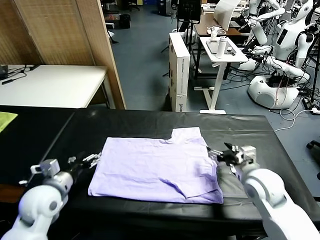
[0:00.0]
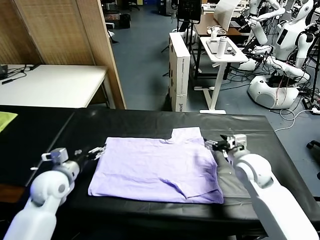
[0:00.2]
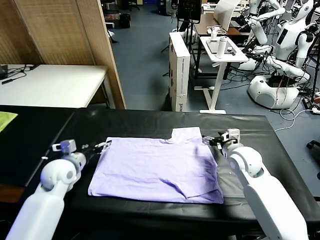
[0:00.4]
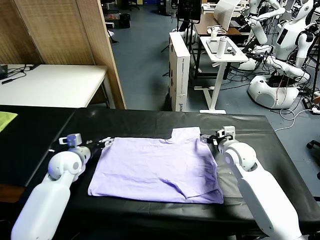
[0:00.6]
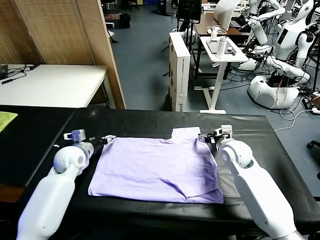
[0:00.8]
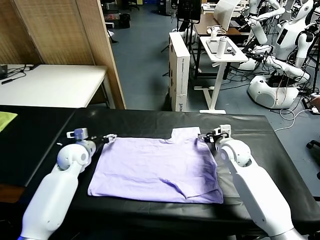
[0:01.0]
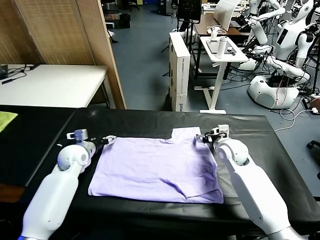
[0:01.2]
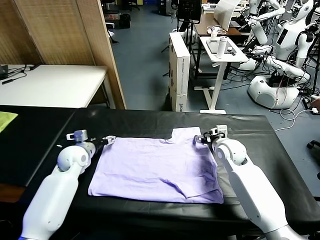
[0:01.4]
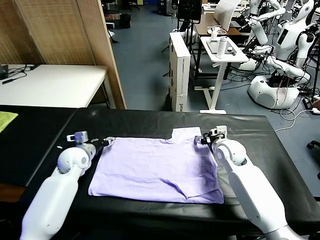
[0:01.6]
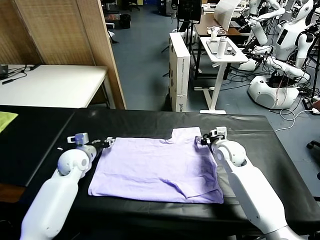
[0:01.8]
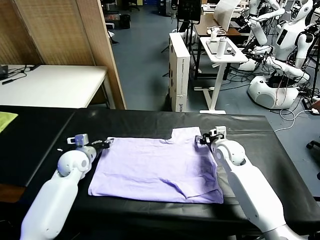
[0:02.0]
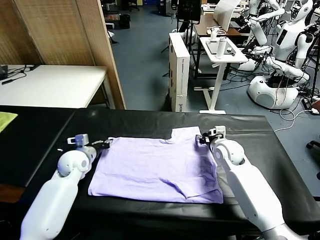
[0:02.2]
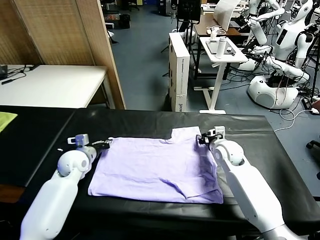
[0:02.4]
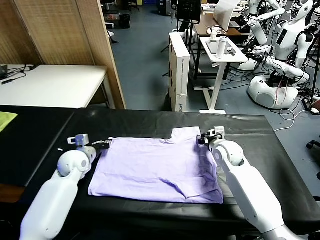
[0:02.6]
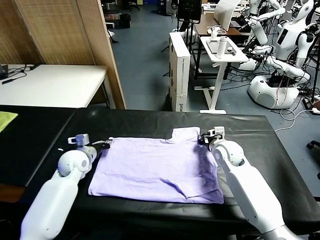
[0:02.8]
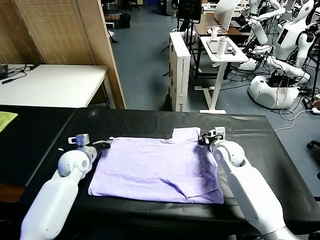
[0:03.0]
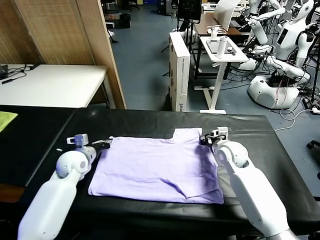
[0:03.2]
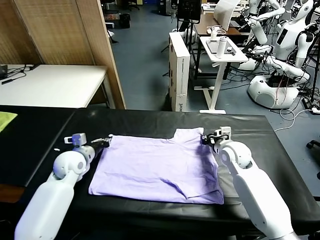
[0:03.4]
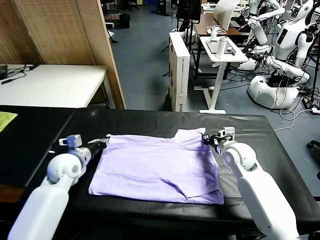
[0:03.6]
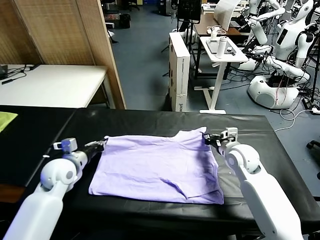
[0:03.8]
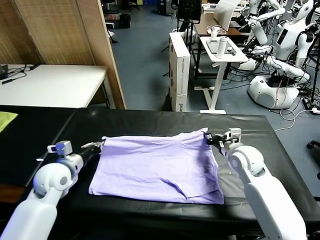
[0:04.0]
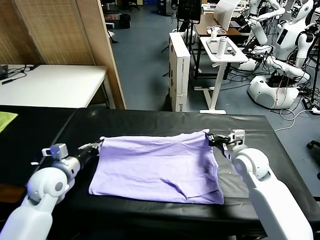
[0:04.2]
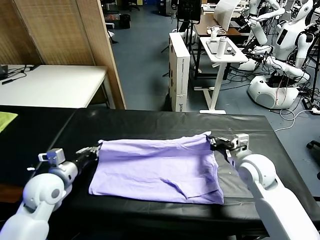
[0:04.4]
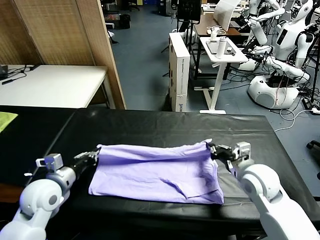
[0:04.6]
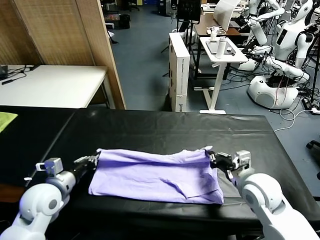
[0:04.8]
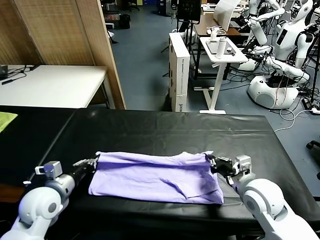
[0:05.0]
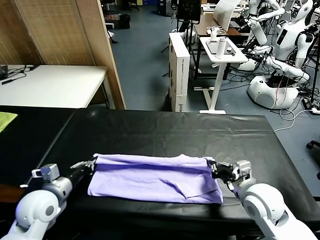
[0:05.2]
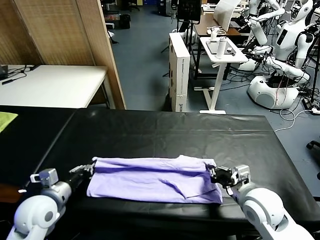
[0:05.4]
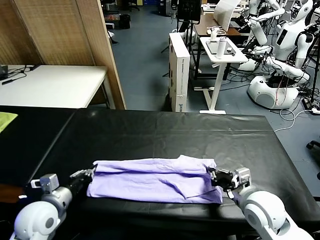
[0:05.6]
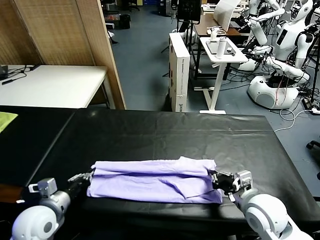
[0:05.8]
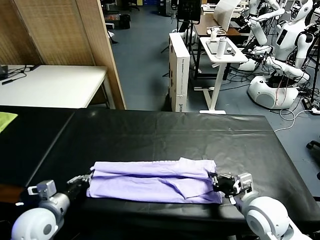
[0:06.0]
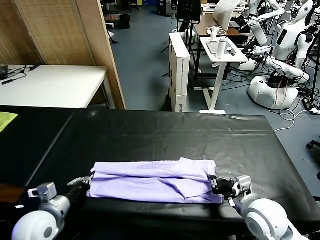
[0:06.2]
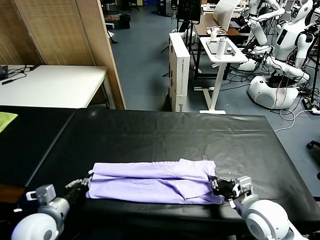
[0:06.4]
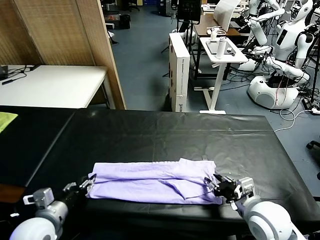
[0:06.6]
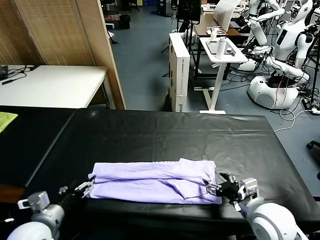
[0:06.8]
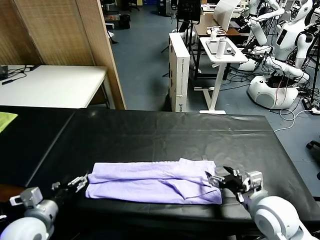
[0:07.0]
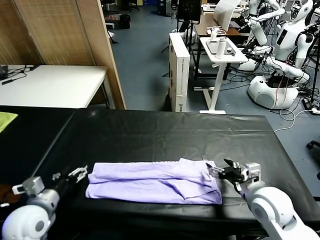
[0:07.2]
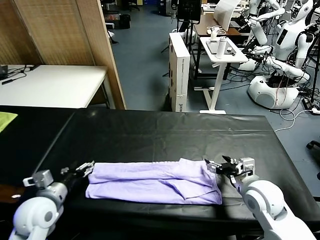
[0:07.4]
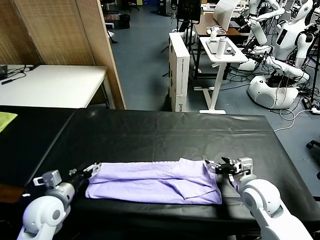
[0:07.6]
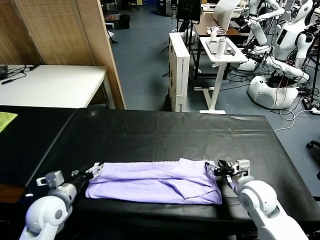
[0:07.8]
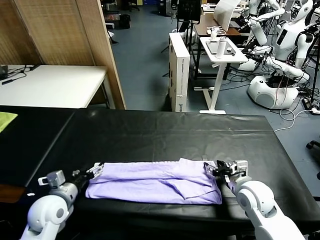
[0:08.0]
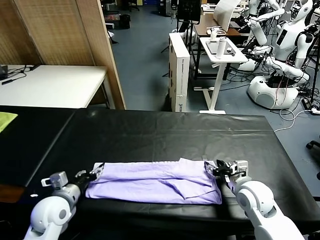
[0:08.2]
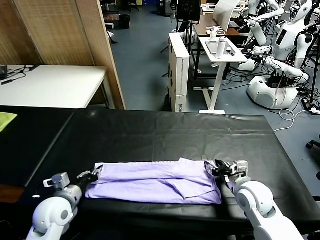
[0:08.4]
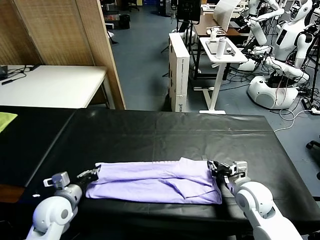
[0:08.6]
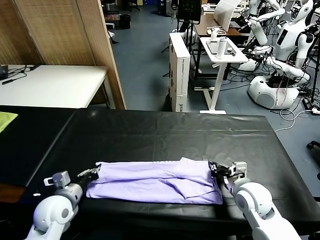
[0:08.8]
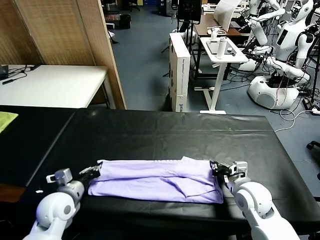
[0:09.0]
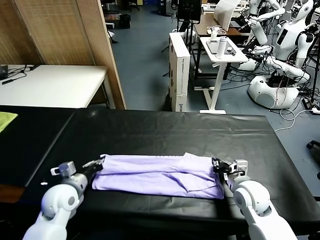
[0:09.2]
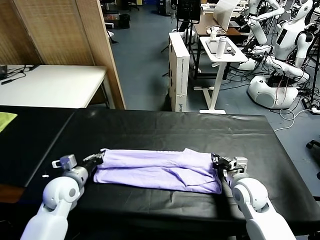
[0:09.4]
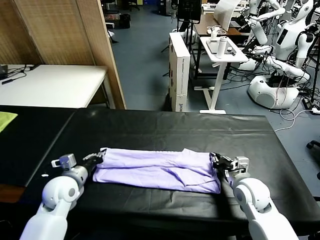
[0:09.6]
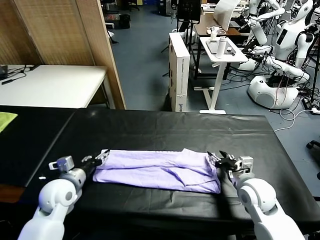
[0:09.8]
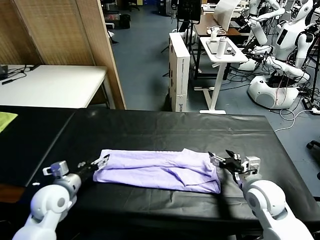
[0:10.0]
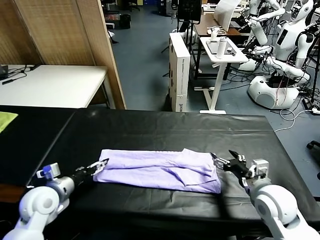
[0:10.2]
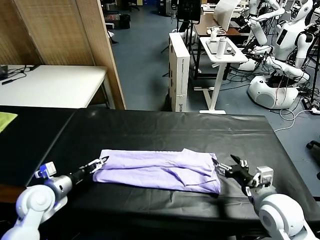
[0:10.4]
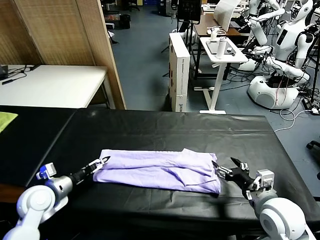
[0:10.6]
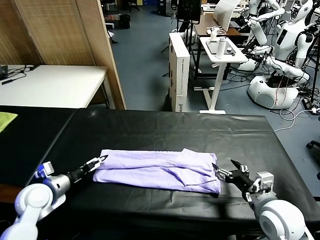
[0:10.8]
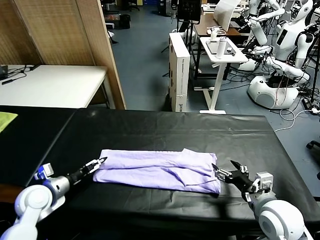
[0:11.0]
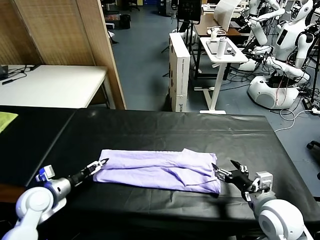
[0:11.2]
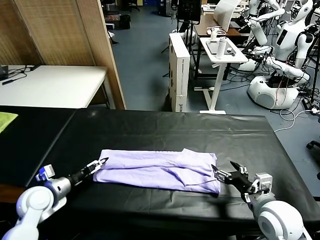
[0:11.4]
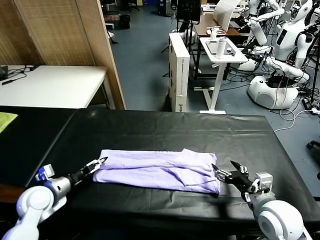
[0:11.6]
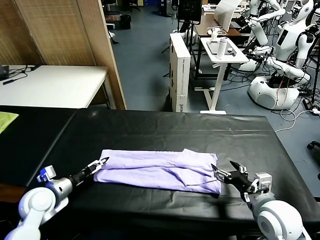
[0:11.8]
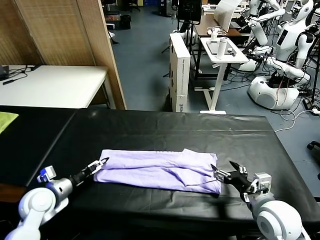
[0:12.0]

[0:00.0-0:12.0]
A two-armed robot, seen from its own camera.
Task of the whole recording: fold and organize the clothes.
Step, 0:00.0 to 0:03.2: use both grippers simultaneously to clamp the upper edge of the clothing fabric.
Step, 0:03.4 to 0:06.6: use both grippers to drag the upper edge of the fabric backward and fold it over the lower edge.
0:00.0 to 0:01.6: The left gripper is displaced forward by roughly 15 cm. The right gripper heads forward and downward, covering about 10 cm.
0:01.6 to 0:03.0: The right gripper closes, while the left gripper closes.
0:03.0 to 0:04.4: The two grippers go about 15 cm backward and upward.
0:04.4 to 0:06.0: Both grippers travel together backward, approximately 10 cm.
0:06.0 to 0:07.6: The right gripper shifts some 5 cm forward, and opens up. The left gripper opens its fingers.
0:07.6 to 0:09.0: The left gripper closes up. The right gripper closes up.
0:09.0 to 0:10.4: The right gripper shifts some 10 cm backward and upward, and opens up. The left gripper goes approximately 5 cm to the left, and opens its fingers.
0:10.4 to 0:12.0: The grippers make only small movements.

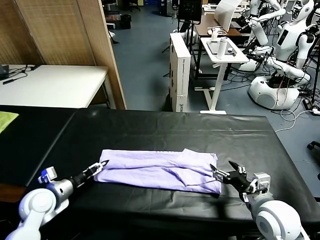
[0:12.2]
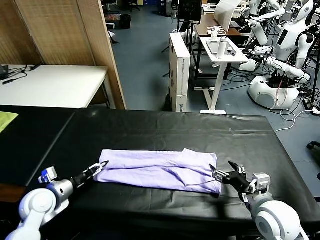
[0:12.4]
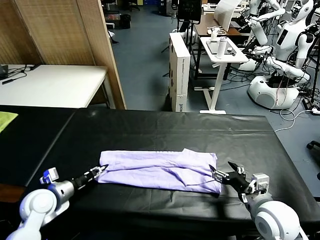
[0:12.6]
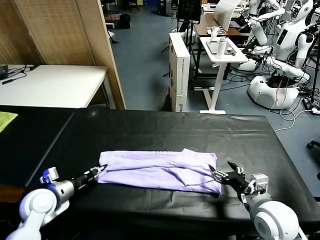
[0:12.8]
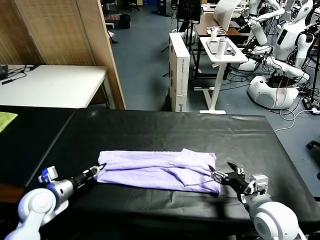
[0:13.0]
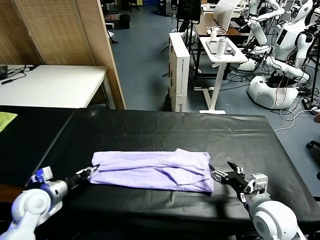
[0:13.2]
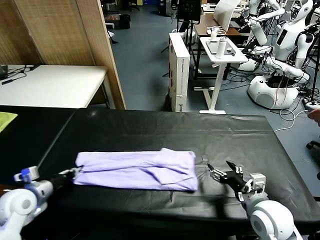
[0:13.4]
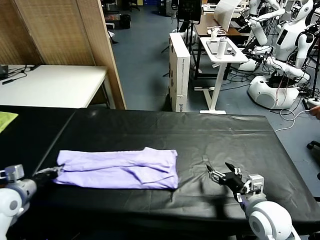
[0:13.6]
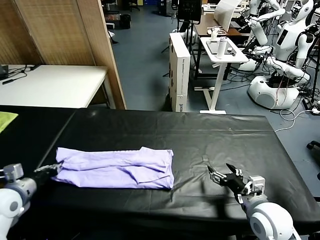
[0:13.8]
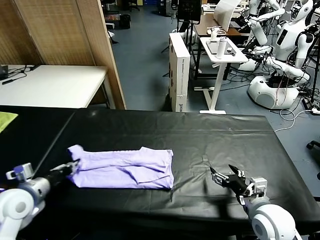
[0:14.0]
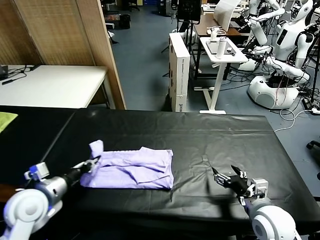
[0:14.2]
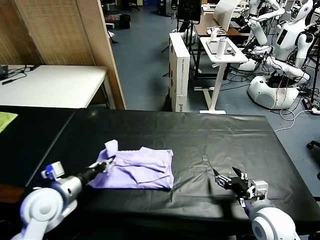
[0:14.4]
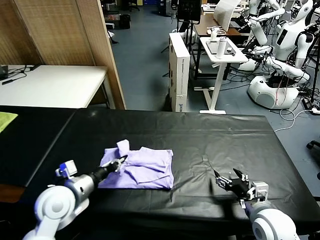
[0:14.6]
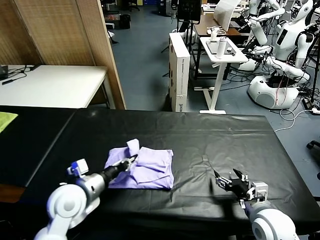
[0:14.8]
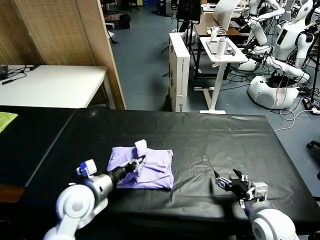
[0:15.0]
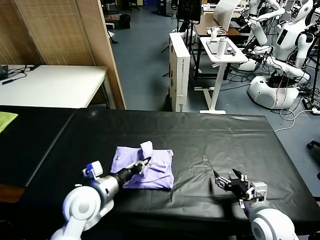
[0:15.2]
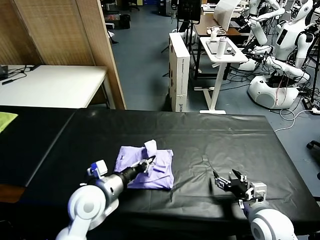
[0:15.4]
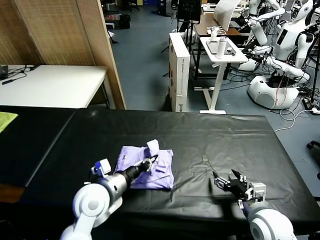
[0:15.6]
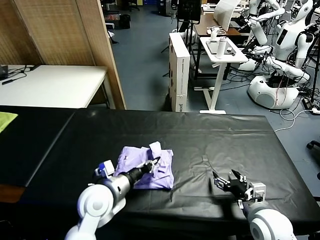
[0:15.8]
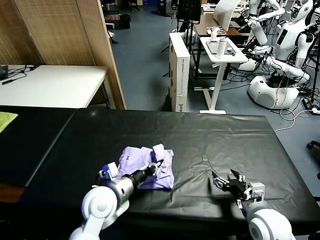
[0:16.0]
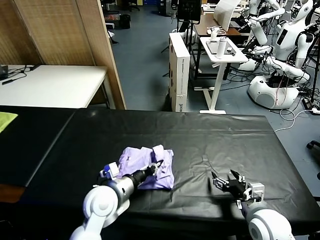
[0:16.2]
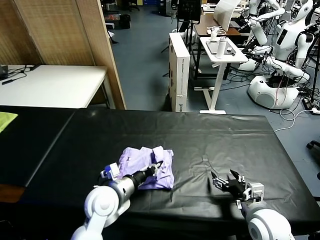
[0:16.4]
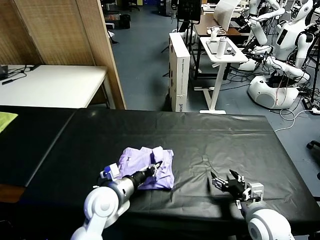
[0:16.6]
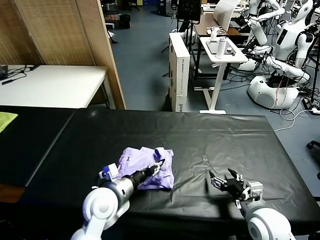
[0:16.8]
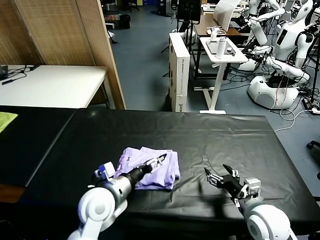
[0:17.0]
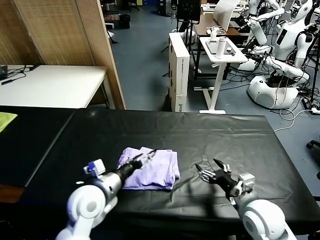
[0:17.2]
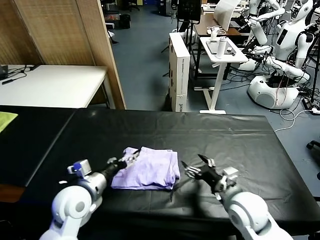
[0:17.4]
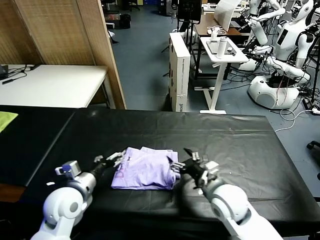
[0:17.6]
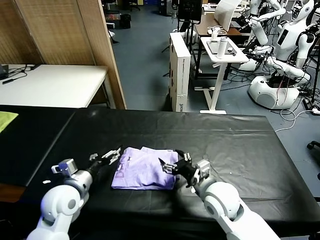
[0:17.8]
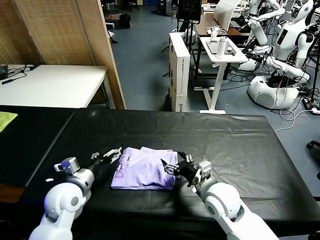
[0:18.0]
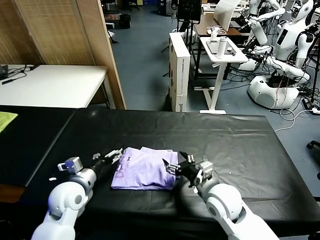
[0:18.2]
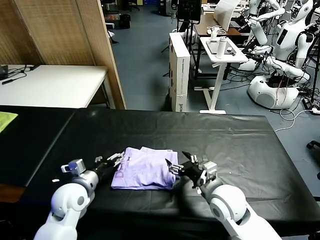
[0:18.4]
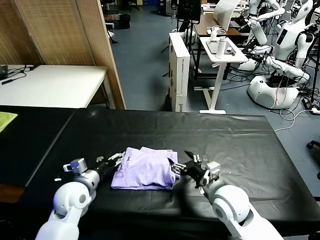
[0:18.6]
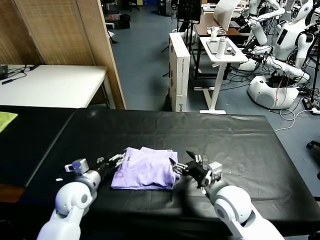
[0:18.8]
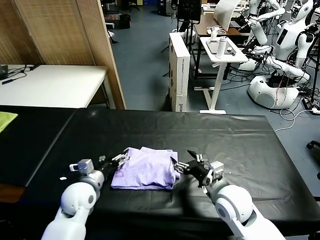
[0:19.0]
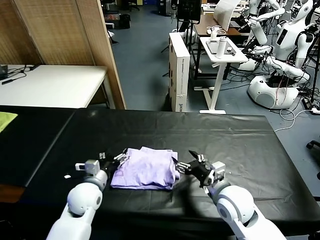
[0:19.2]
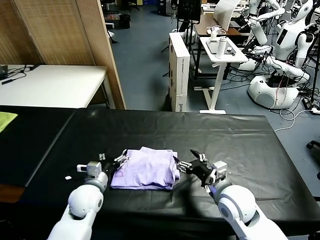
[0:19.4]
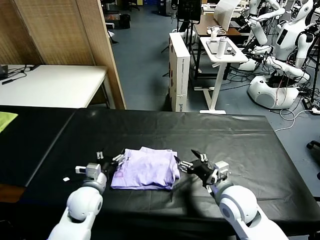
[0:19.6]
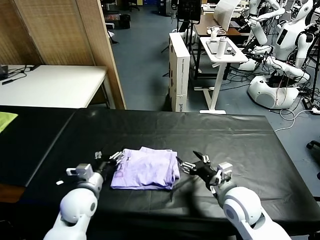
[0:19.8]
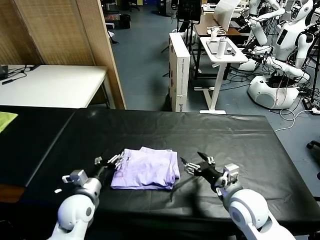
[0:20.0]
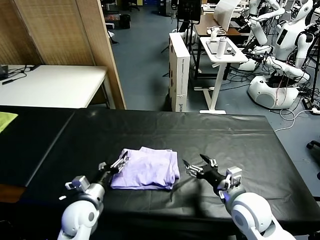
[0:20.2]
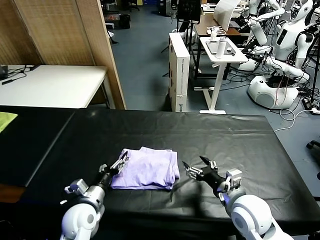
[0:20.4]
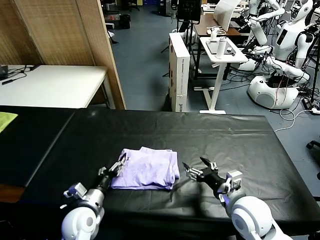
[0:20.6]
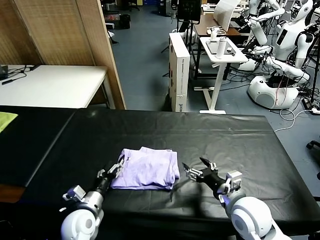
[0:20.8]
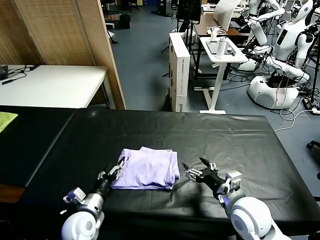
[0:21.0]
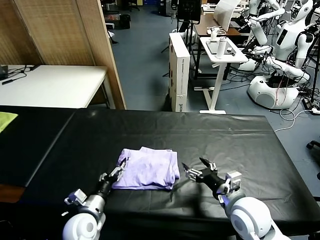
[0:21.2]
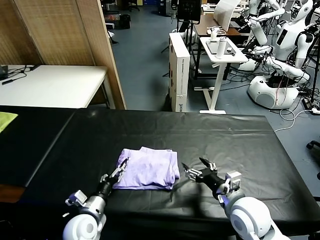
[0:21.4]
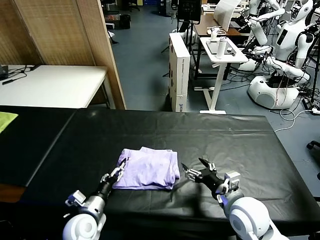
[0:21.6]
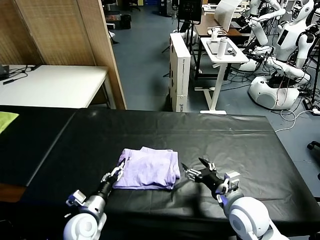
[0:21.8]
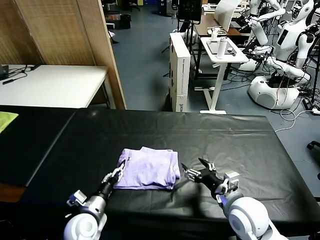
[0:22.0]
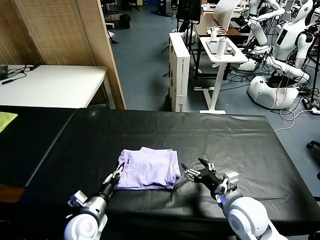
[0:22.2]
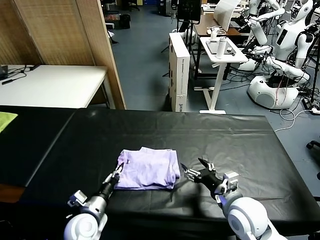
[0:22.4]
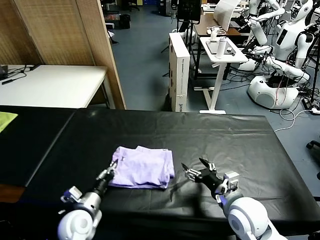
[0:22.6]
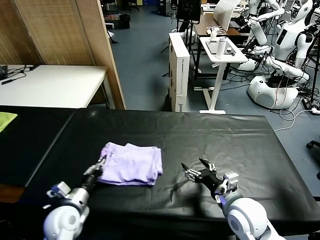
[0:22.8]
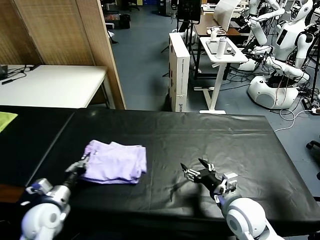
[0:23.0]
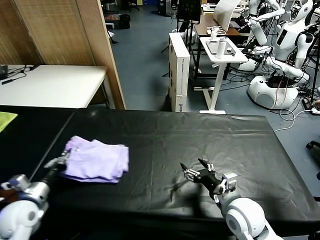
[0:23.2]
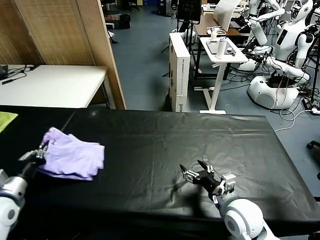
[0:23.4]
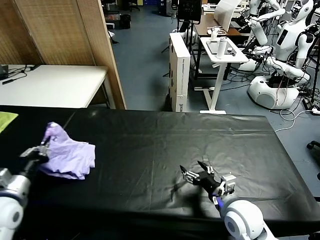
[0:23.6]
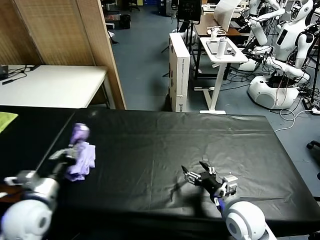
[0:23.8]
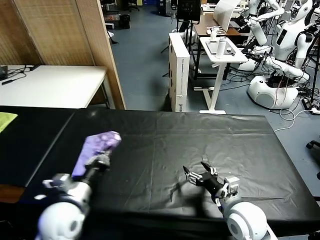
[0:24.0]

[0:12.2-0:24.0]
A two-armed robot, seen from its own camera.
Task of the whole recording: fold and organize the clothes.
Step, 0:13.4 to 0:17.0: use the left gripper to drag the left edge of the fabric to the left and folds it over the right edge.
0:12.2 to 0:13.6: The left gripper goes some 10 cm to the left and upward, and closes its fingers.
0:13.6 to 0:15.2: The left gripper heads to the right, covering roughly 25 cm.
0:15.2 to 0:16.6: The left gripper shifts by approximately 5 cm.
0:16.6 to 0:18.2: The right gripper travels to the left and forward by approximately 15 cm. Meanwhile the left gripper heads to the left, covering about 10 cm, and opens up.
0:18.2 to 0:19.6: The left gripper changes place by approximately 5 cm.
0:19.6 to 0:21.0: The left gripper heads backward, covering approximately 5 cm.
0:21.0 to 0:22.6: The left gripper closes its fingers.
0:22.6 to 0:24.0: The left gripper goes roughly 10 cm upward, and travels to the left and back again, some 15 cm each way.
